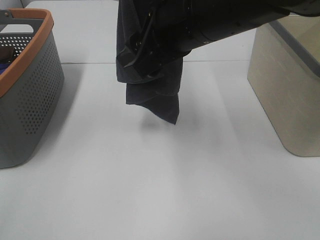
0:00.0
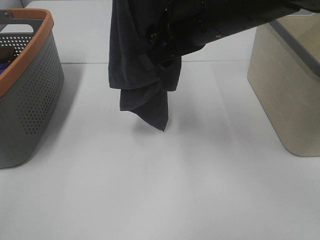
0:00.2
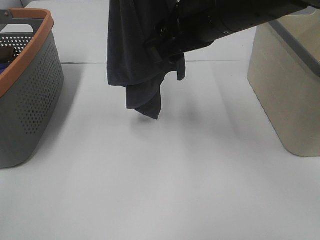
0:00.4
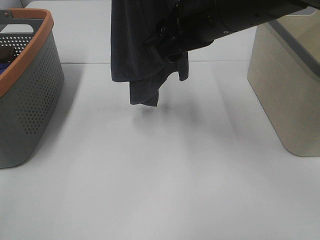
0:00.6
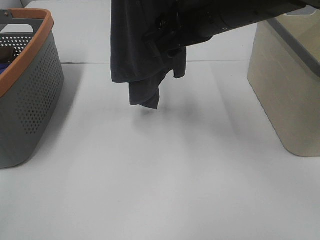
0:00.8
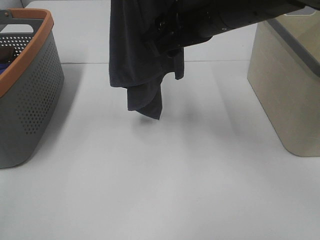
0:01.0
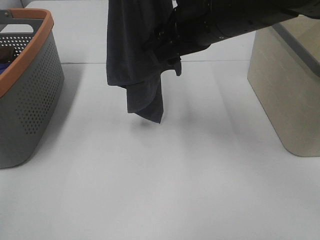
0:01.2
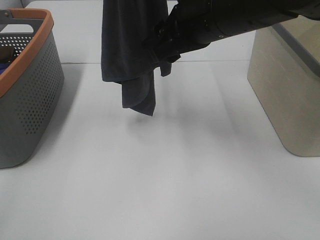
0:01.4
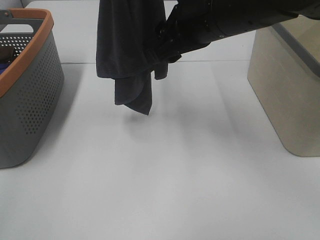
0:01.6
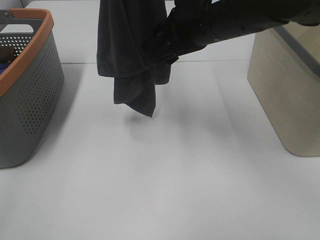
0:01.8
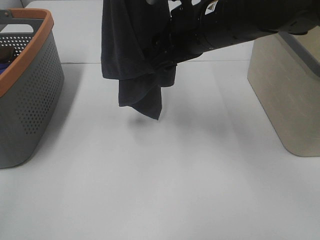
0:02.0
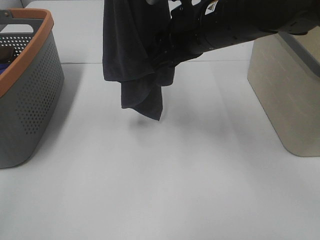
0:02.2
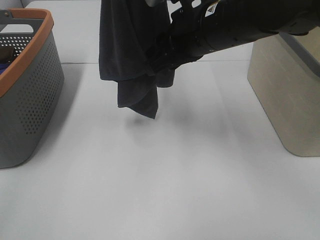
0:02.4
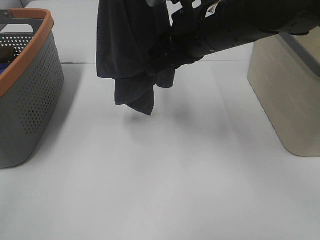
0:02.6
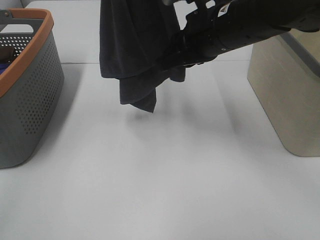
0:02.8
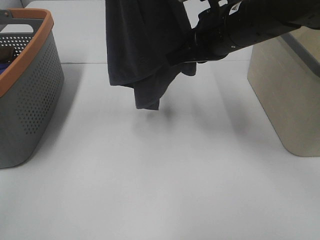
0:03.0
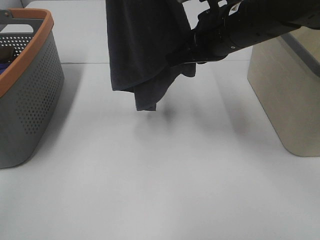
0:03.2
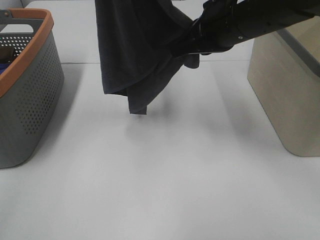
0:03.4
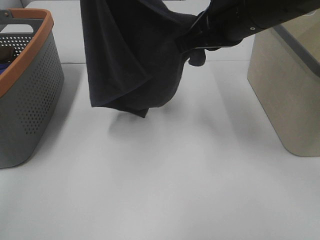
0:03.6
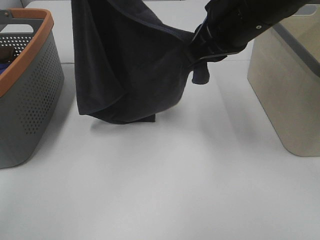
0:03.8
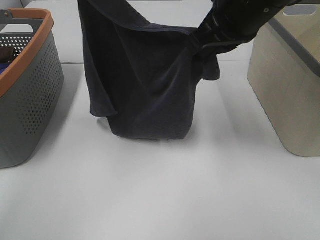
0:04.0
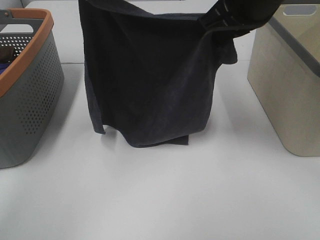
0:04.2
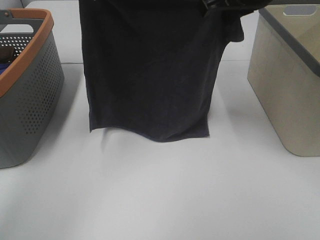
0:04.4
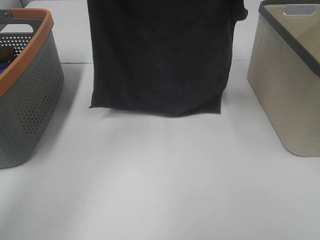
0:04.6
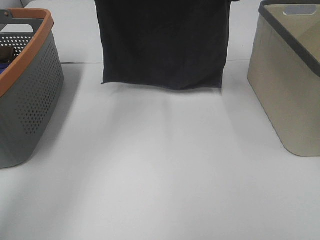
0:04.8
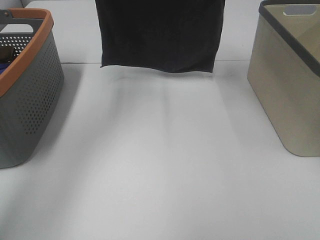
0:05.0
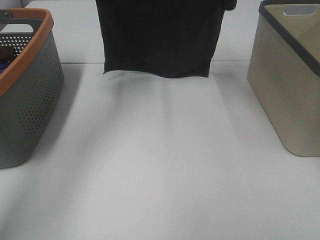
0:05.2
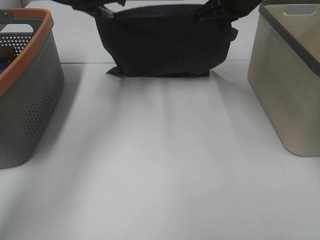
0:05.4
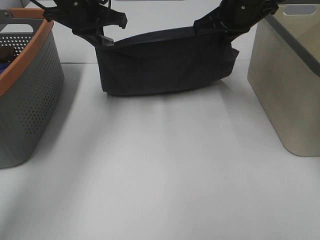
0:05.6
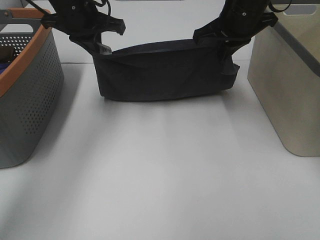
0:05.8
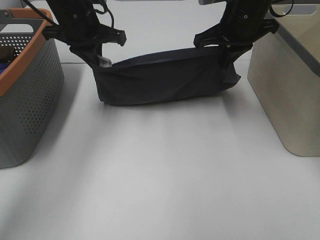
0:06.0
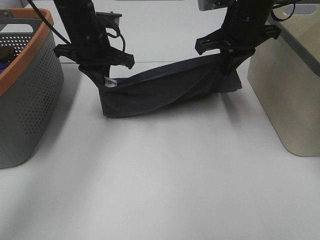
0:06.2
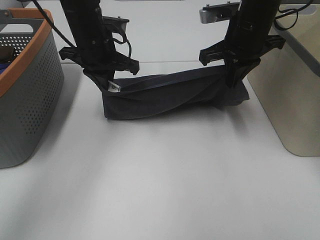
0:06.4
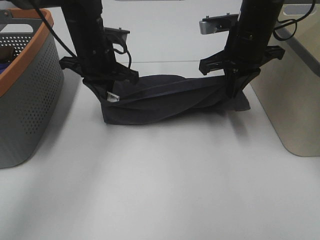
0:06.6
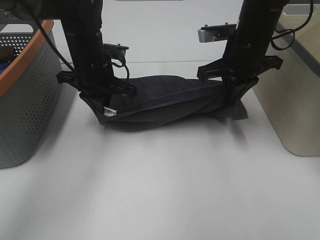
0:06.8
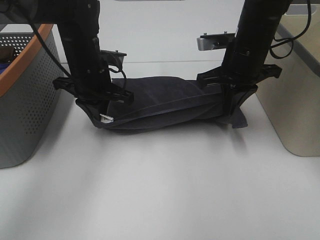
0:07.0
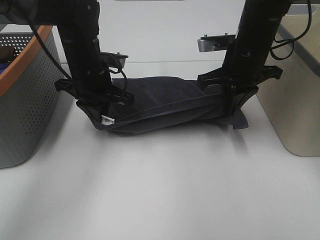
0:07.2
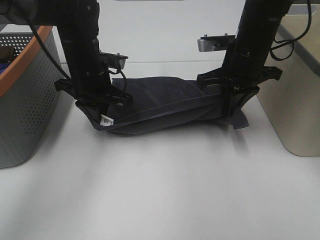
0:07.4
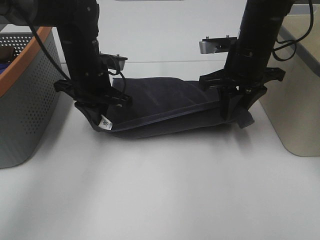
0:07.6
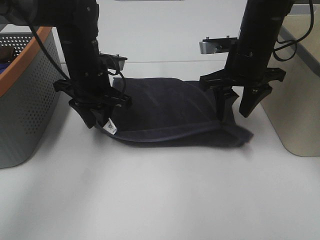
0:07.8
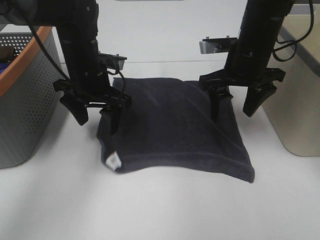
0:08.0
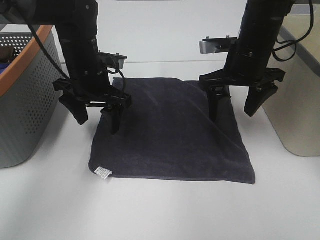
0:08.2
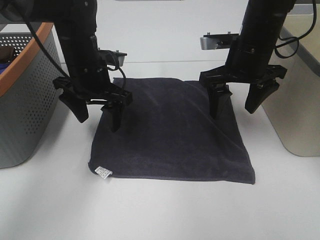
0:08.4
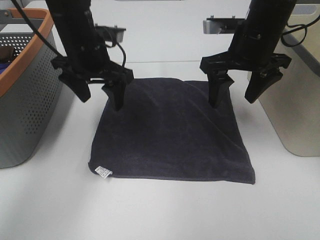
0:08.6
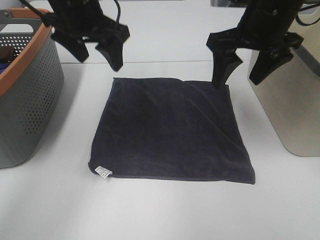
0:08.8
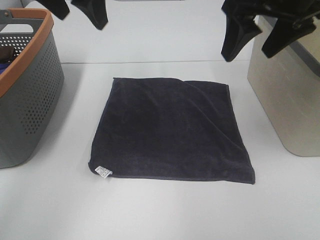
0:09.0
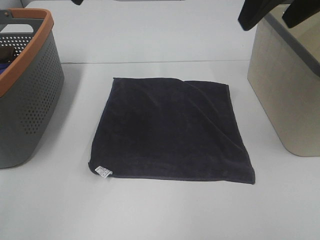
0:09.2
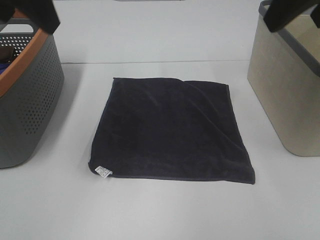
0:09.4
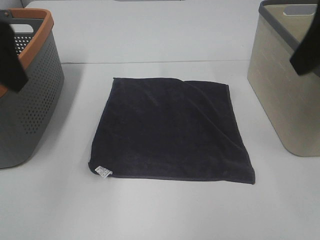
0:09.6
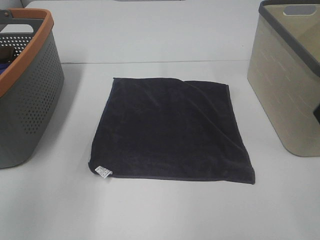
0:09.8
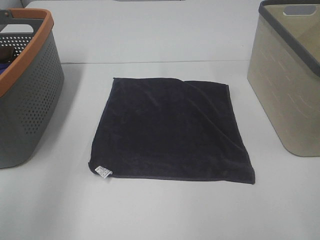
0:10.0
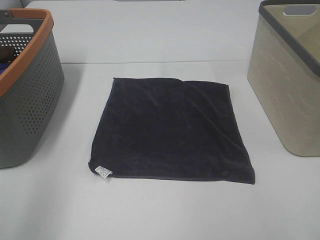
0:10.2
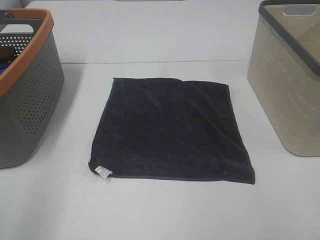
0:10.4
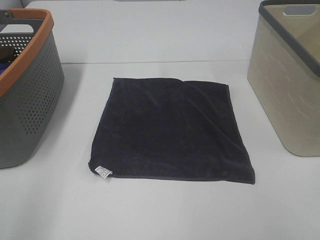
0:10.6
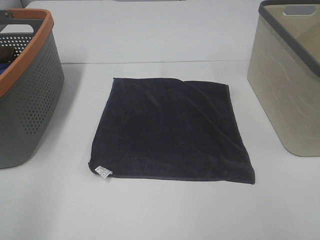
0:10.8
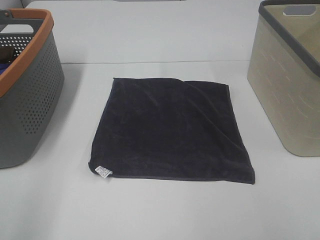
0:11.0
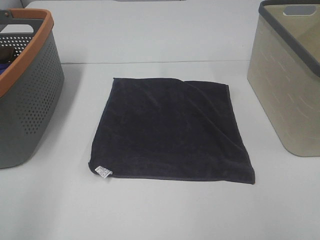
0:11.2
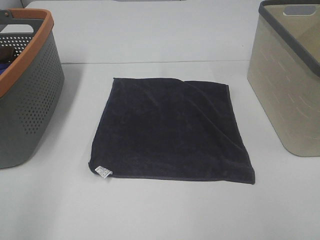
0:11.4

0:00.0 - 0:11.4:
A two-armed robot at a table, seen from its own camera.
Task of the whole recording: Remove the towel and place it.
Step, 0:01.6 - 0:04.2: Left hand: spread the grey towel flat on the table.
Step, 0:01.6 - 0:04.2: Right hand: spread the grey towel flat on the table.
0:00.0 - 0:01.4: There are only small adjustments of the grippers.
0:01.4 - 0:02.8: The right gripper closes up.
0:02.8 - 0:04.2: The left gripper travels downward and forward by approximately 10 cm. Meanwhile the right gripper heads upward, covering some 5 cm.
0:04.2 - 0:05.6: The right gripper is displaced forward and downward by approximately 15 cm, while the left gripper moves downward and forward, roughly 15 cm.
0:05.6 - 0:07.2: The two grippers go some 10 cm downward and backward.
0:07.2 - 0:08.6: The left gripper travels upward by some 5 cm, and opens. Meanwhile the right gripper opens up.
0:08.6 - 0:10.0: The right gripper shifts about 25 cm backward, while the left gripper moves backward and to the left, some 30 cm.
0:10.0 - 0:11.4: The left gripper is displaced backward by approximately 5 cm.

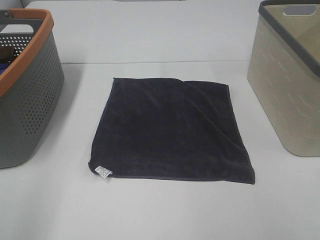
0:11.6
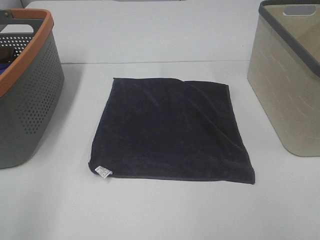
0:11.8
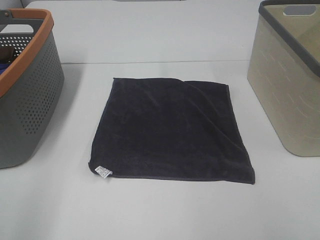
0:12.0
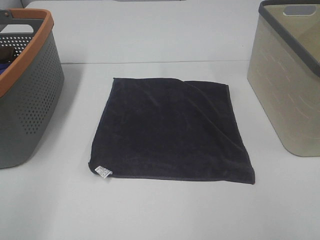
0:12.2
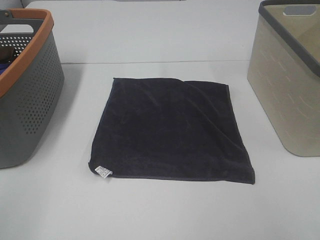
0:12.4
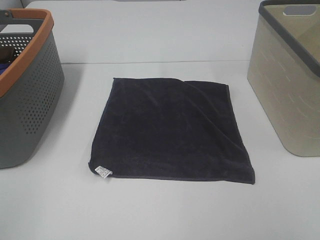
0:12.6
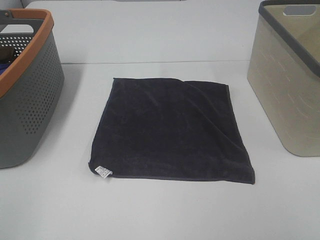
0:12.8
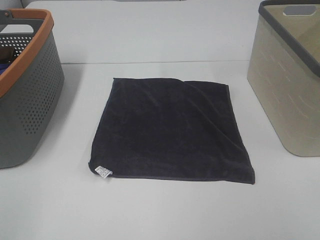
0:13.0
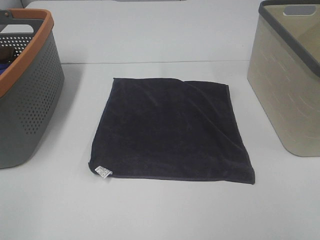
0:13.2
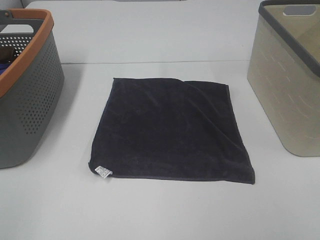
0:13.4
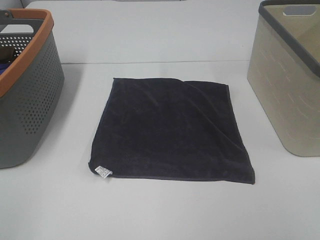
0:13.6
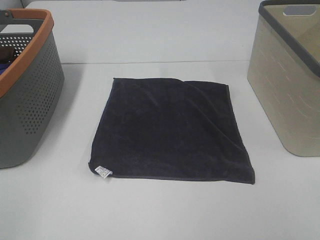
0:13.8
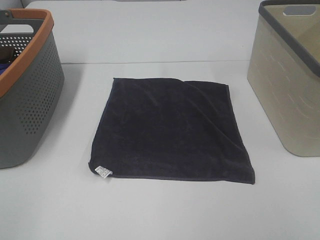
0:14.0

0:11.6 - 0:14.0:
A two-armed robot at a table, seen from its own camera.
Task of the whole recording: Remove the towel and place it.
0:12.8 - 0:14.0: Both grippers stay about where they are.

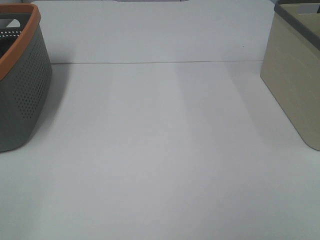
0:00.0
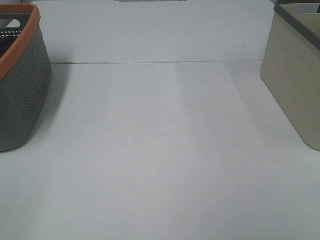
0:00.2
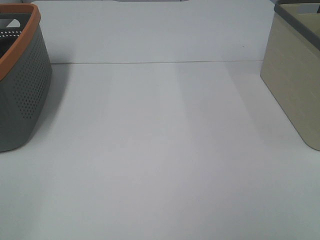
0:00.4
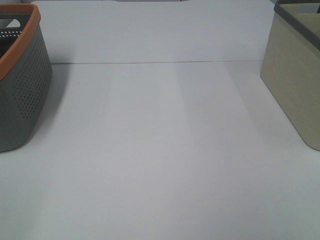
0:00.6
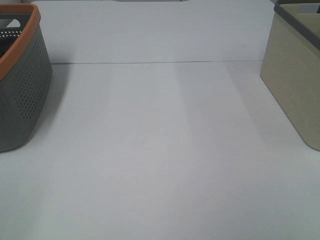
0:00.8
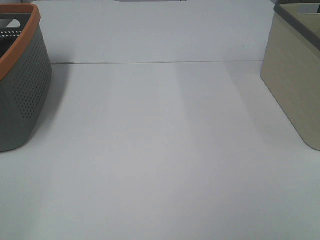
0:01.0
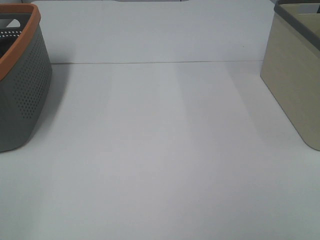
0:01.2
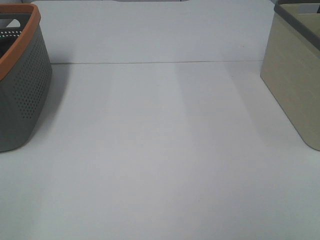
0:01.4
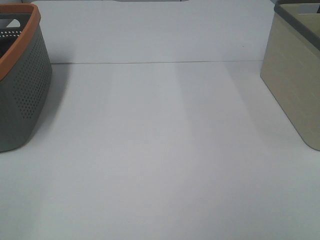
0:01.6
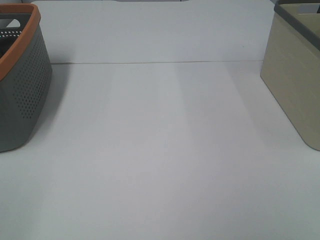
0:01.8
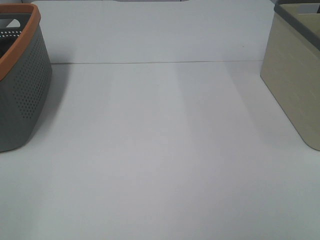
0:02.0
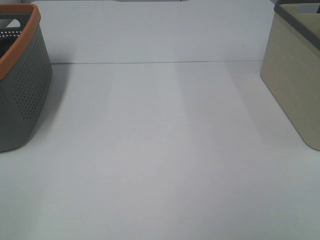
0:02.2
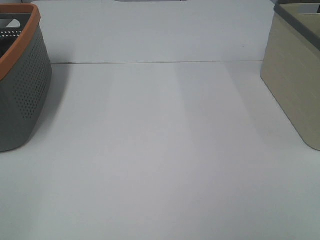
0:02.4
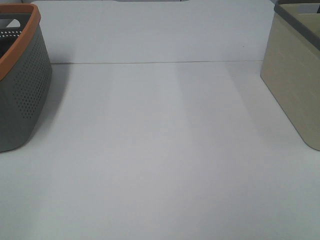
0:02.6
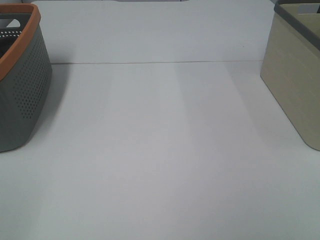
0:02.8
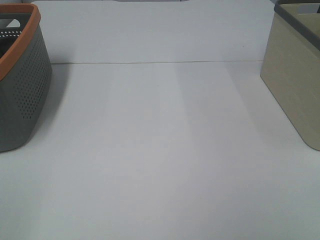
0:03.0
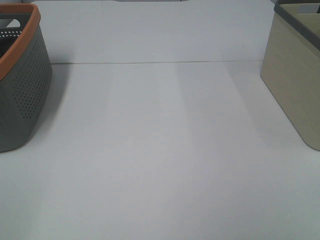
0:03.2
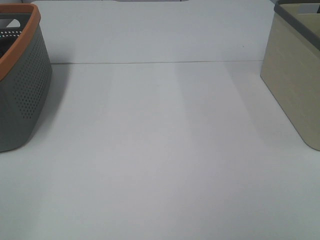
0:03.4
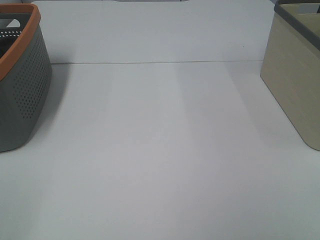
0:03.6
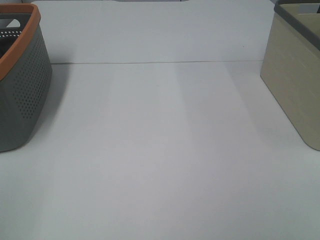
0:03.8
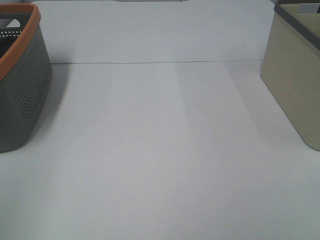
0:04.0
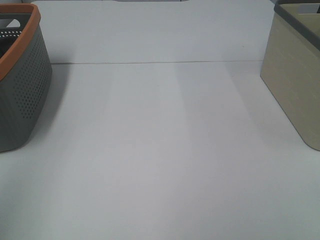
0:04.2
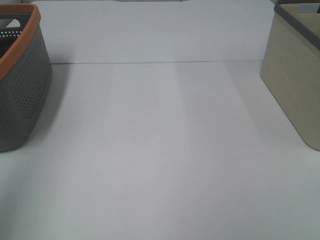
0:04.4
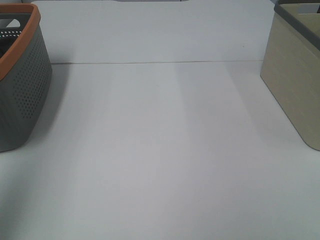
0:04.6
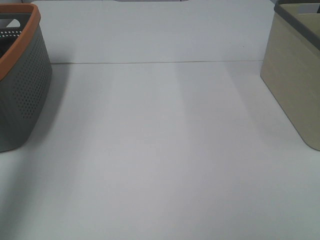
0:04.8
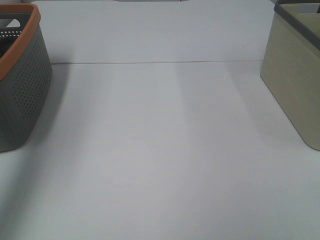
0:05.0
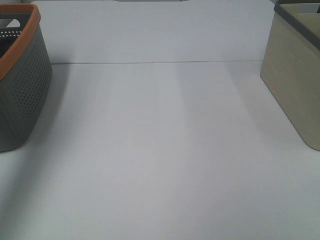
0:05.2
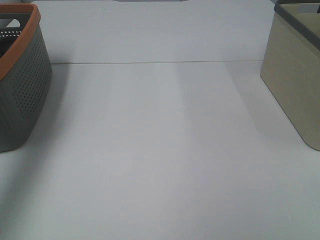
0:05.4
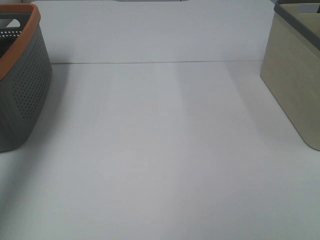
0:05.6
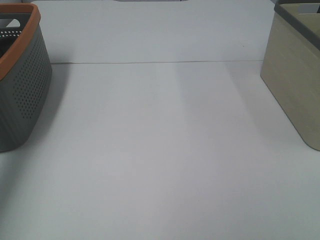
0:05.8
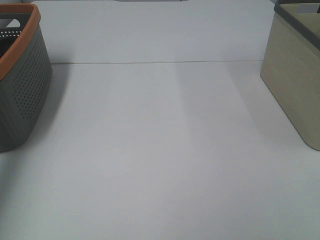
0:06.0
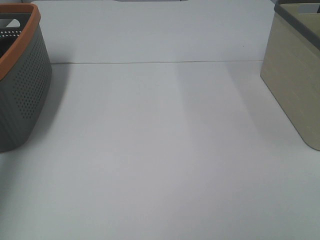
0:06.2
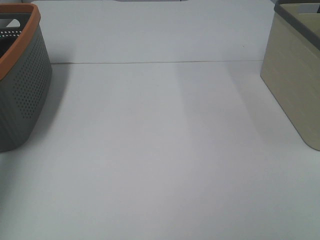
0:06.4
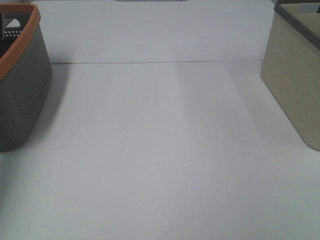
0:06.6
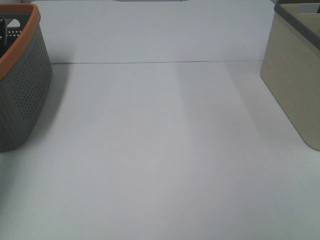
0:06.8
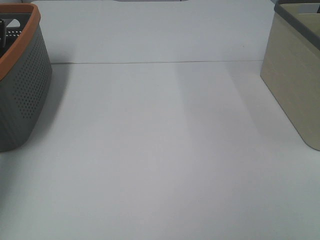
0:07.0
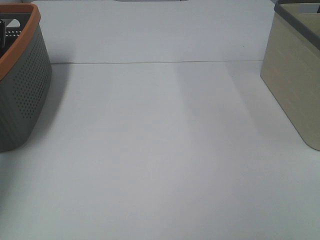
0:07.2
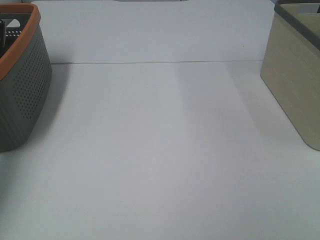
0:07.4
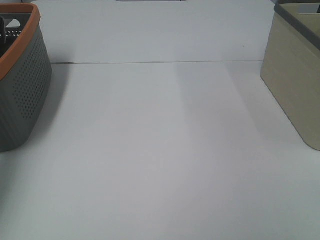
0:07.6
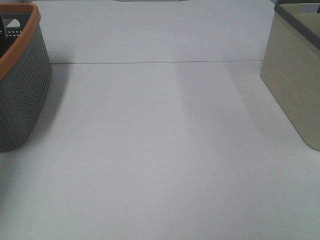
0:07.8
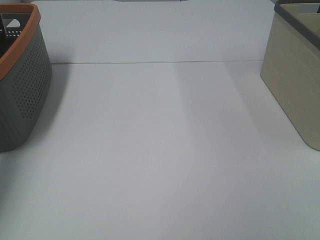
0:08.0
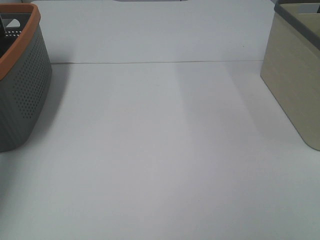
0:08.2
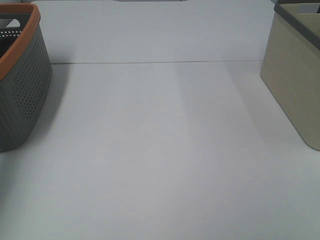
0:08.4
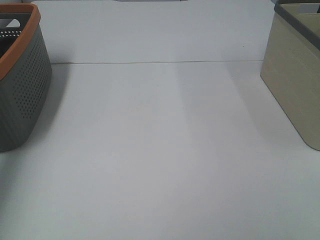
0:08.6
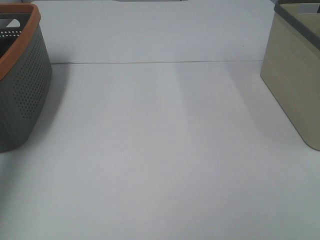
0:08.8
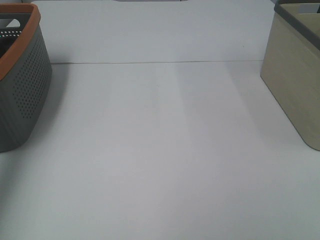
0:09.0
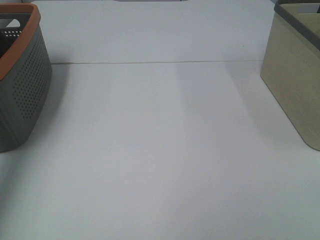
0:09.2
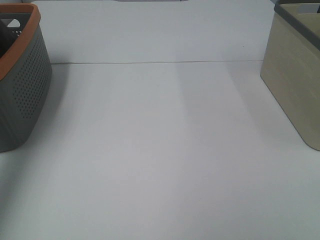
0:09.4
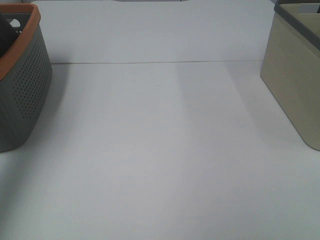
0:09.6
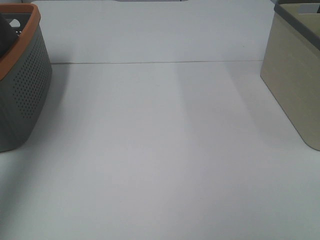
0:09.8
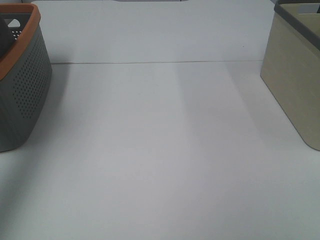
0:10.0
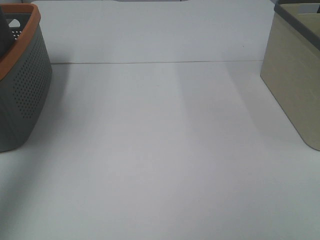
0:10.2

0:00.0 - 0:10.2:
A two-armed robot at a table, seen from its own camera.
Task of the whole recording: Remove the towel and place it.
0:00.0 - 0:03.0: Both grippers stay put.
0:03.0 - 0:04.4: The left gripper shifts some 20 cm upward and forward.
0:04.4 - 0:05.8: The left gripper shifts roughly 30 cm forward.
0:08.8 - 0:10.2: The left gripper heads upward and backward, covering about 25 cm.
